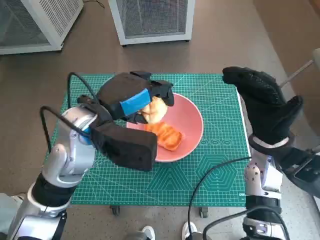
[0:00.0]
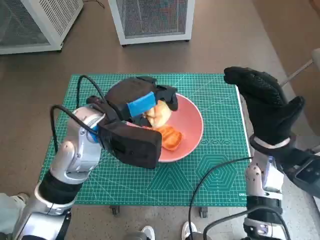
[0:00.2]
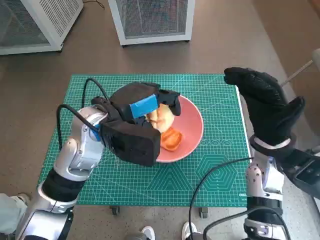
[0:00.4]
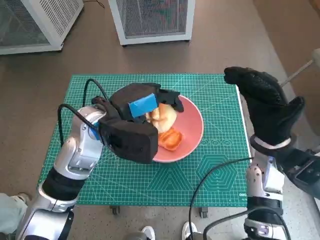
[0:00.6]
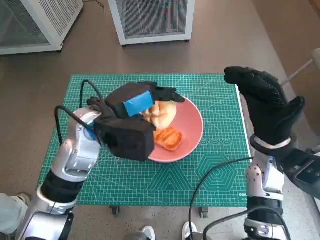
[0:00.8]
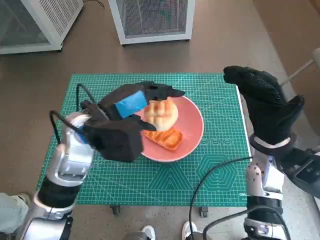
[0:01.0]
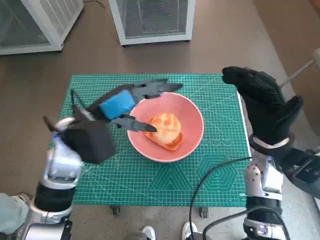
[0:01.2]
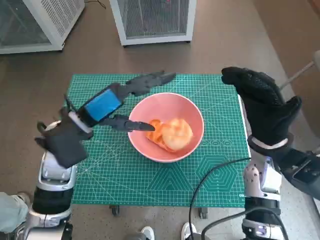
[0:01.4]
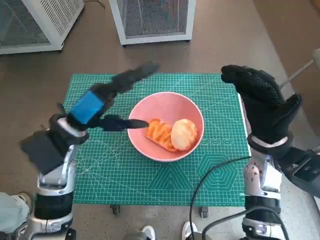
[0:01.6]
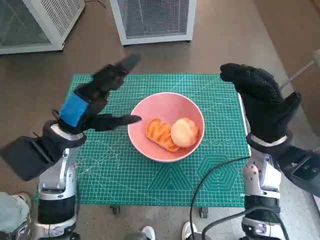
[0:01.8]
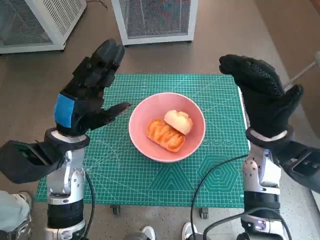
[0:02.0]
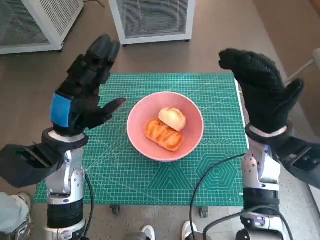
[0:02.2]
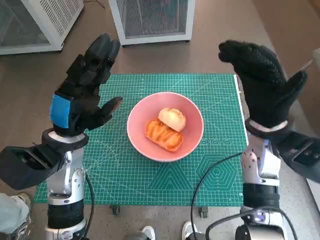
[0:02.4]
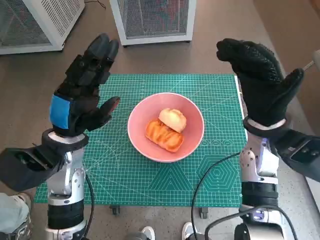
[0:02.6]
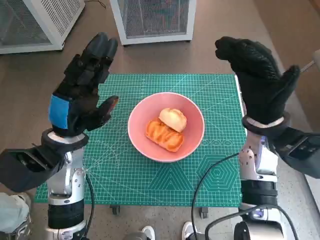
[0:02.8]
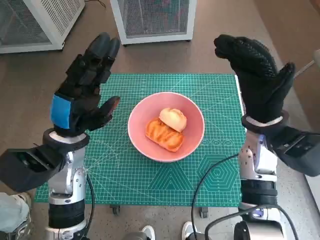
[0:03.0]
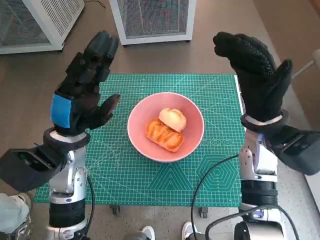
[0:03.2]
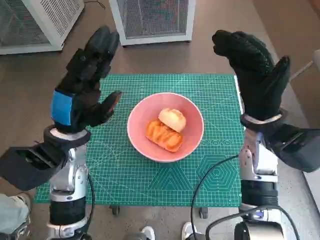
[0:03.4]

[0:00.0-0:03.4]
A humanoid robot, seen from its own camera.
Task of the whole recording: Push the bowl into the center of the table and put the bread into the bowl.
0:00.0 to 0:01.6: The left hand shifts about 5 cm to the left.

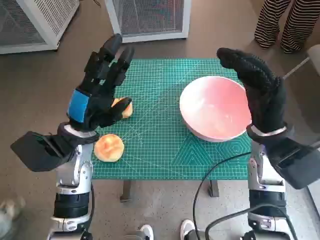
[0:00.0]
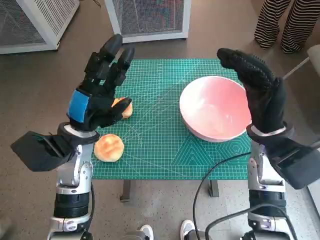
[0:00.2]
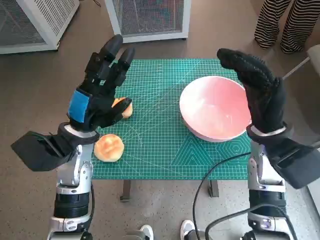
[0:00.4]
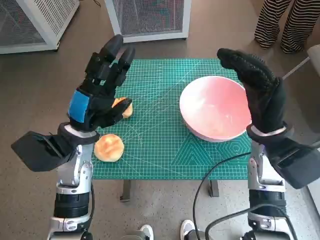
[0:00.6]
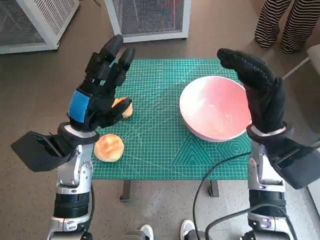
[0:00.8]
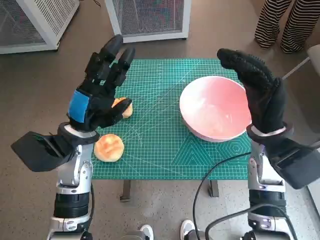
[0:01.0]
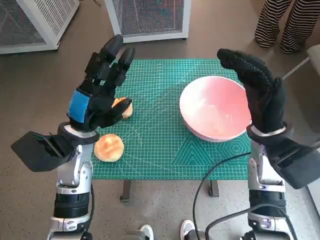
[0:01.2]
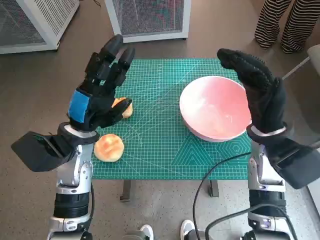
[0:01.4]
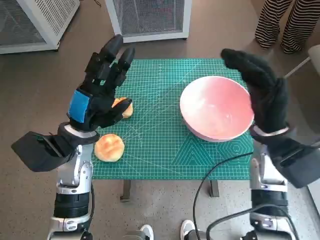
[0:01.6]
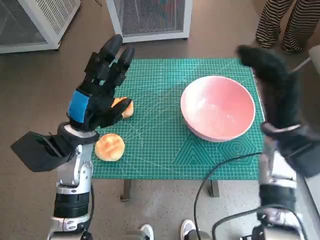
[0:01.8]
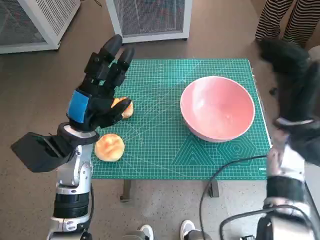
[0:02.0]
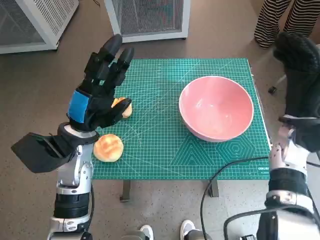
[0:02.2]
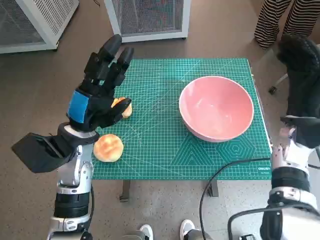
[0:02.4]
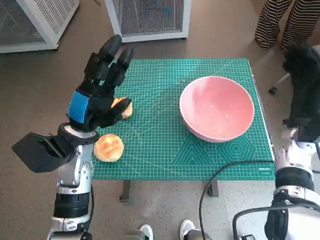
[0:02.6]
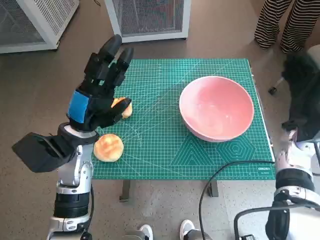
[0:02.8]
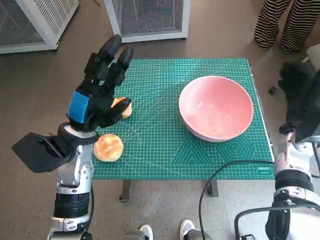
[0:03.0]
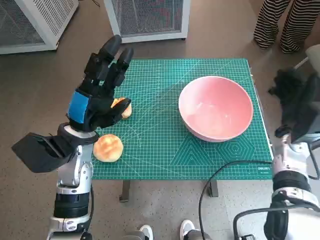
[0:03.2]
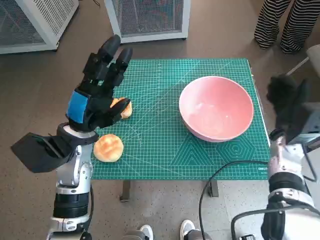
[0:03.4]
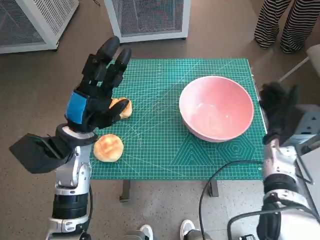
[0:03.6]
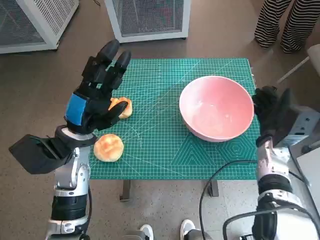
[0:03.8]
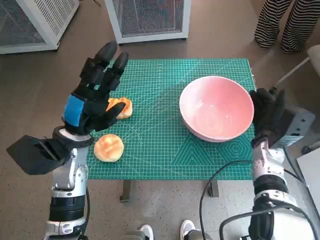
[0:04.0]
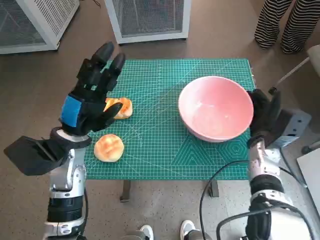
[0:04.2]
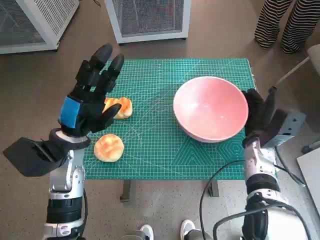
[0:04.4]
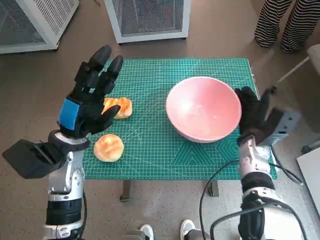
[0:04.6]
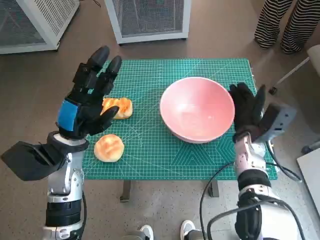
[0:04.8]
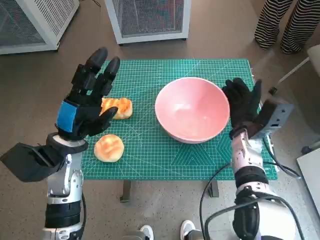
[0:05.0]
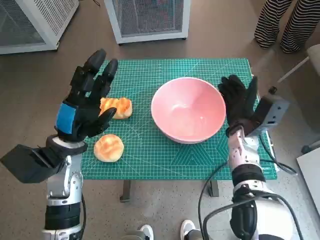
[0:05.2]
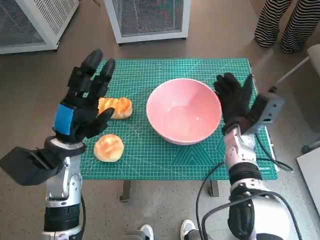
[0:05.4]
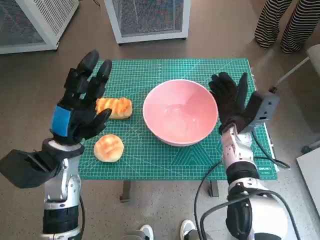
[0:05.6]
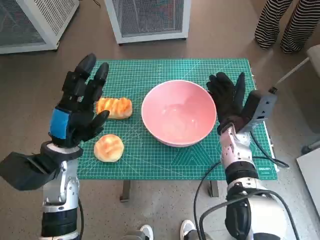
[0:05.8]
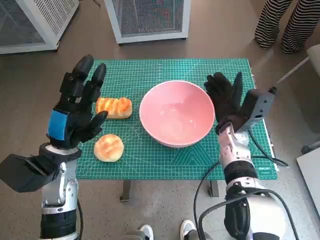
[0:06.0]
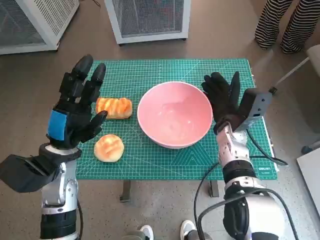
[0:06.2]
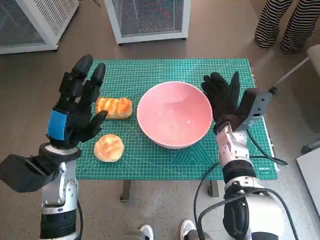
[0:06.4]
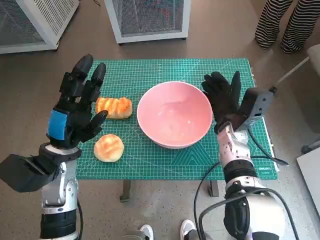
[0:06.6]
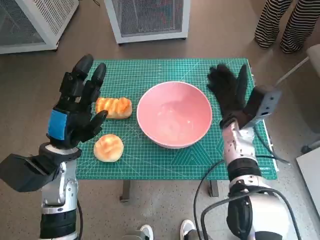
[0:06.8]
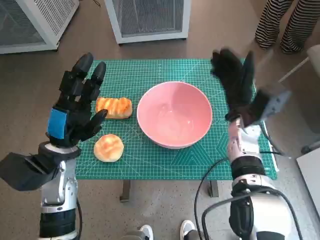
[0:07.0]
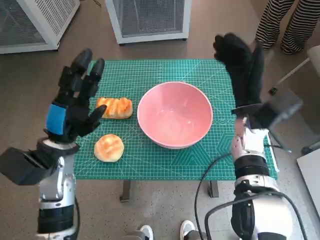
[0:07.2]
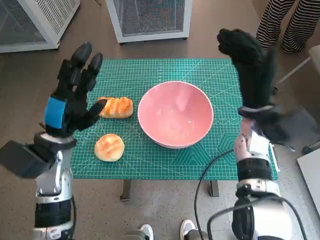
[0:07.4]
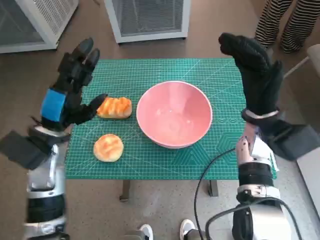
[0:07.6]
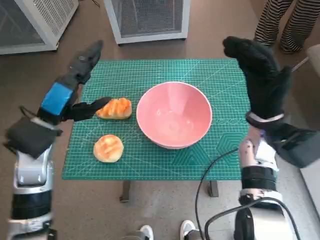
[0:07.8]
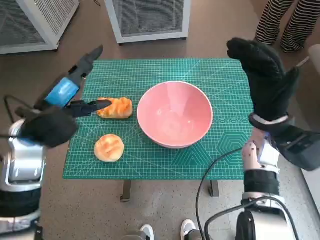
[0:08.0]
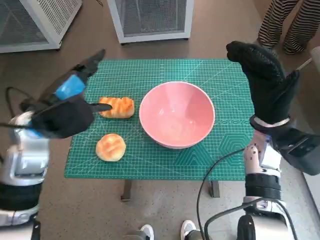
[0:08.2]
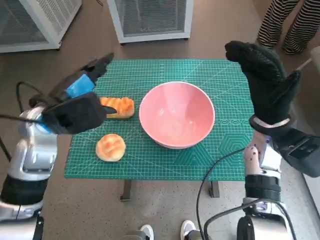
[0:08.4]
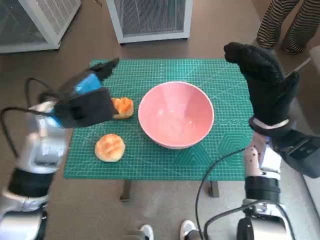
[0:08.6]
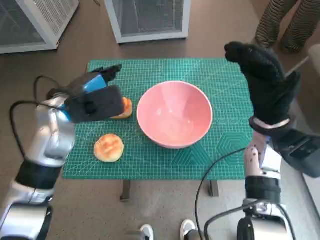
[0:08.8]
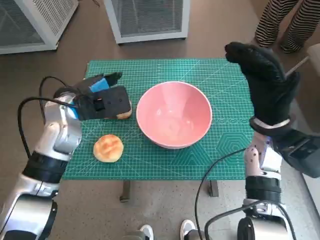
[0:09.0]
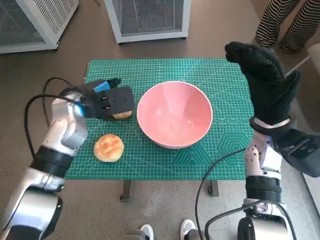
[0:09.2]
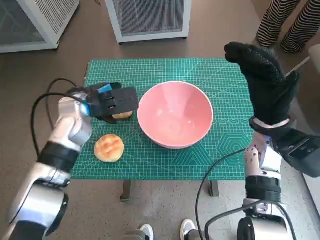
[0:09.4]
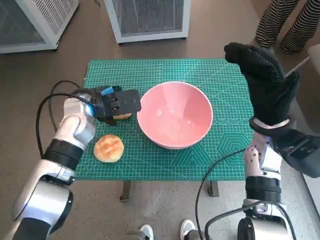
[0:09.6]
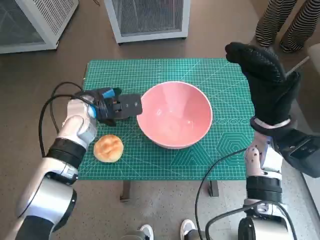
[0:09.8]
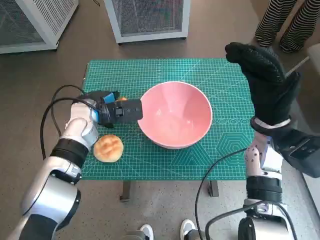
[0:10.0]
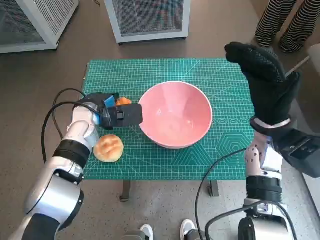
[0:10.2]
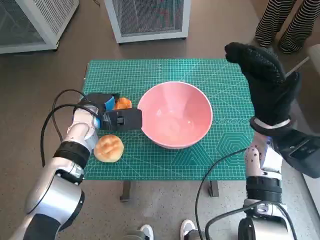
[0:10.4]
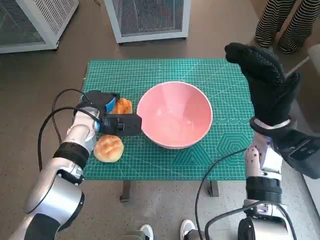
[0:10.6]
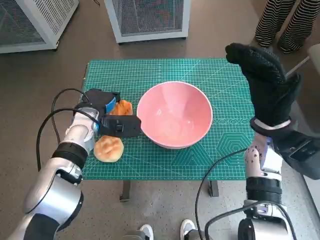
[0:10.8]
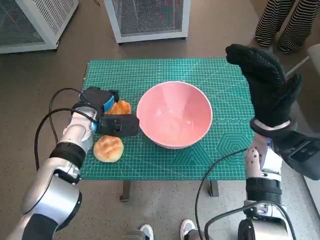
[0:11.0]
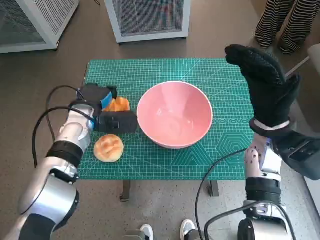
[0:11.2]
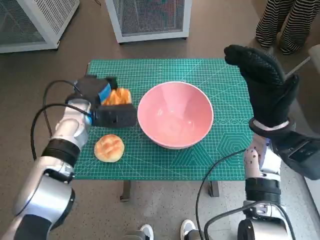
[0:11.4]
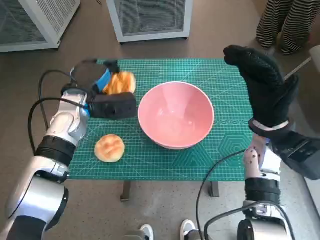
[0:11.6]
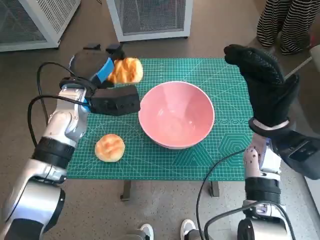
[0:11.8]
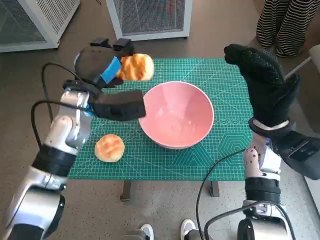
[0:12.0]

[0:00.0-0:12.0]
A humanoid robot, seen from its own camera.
Task of the whole recording: Push the bowl into the center of the table and put the bread into the bowl.
Step, 0:00.0 to 0:06.8: Move the pink bowl to the center of table with right hand.
Step, 0:07.0 to 0:10.6: Grasp the long bread with left hand.
0:01.6 to 0:03.0: The right hand shifts some 10 cm to the right and downward.
0:03.0 to 0:04.4: The right hand moves to the left and downward, some 10 cm.
0:04.4 to 0:06.0: The right hand moves to the left, some 5 cm.
0:06.0 to 0:07.6: The right hand heads upward, covering about 5 cm.
0:07.6 to 0:09.0: The left hand travels forward by approximately 5 cm.
0:09.0 to 0:10.4: The left hand moves downward, some 10 cm.
0:10.4 to 0:12.0: The left hand shifts roughly 10 cm upward.

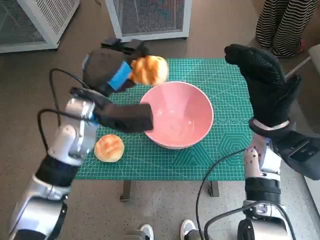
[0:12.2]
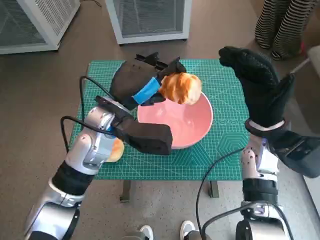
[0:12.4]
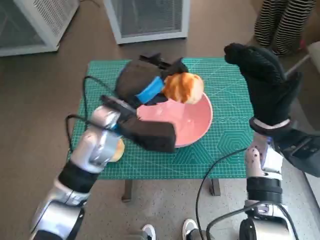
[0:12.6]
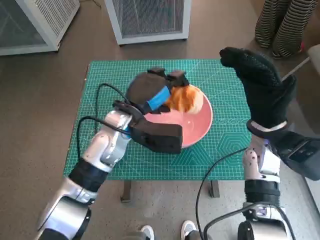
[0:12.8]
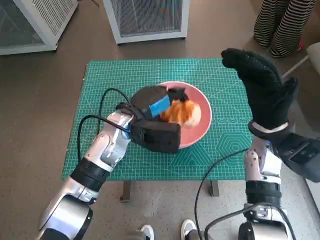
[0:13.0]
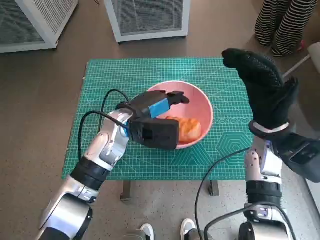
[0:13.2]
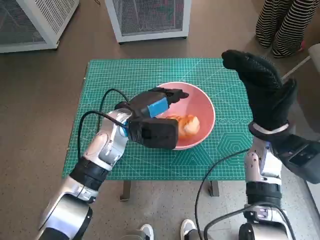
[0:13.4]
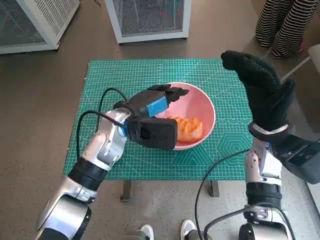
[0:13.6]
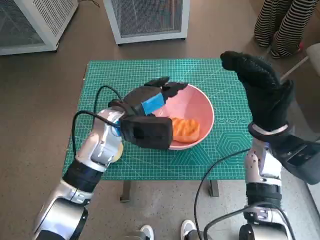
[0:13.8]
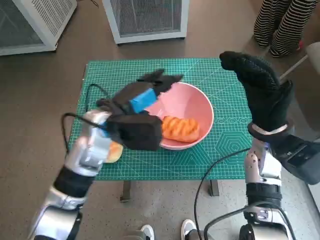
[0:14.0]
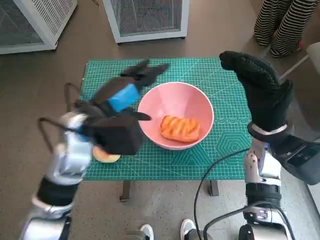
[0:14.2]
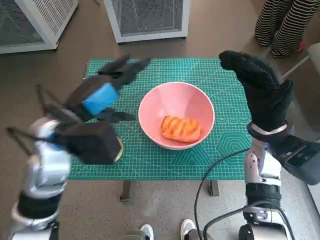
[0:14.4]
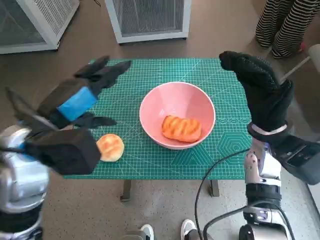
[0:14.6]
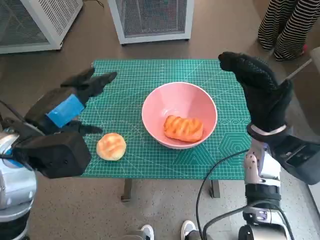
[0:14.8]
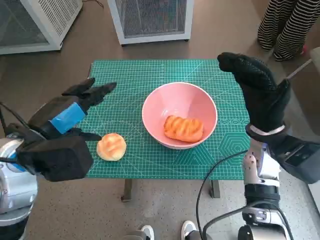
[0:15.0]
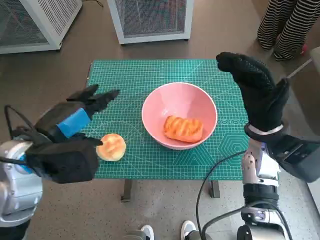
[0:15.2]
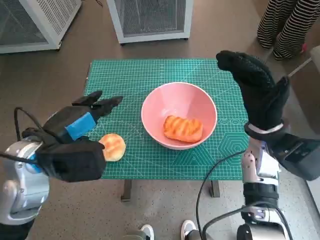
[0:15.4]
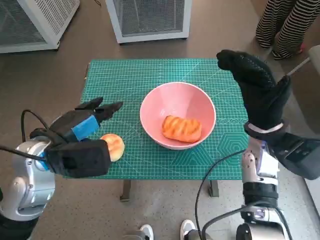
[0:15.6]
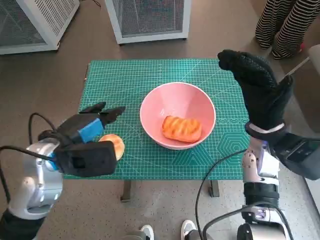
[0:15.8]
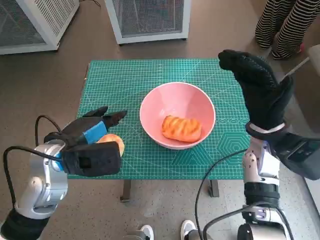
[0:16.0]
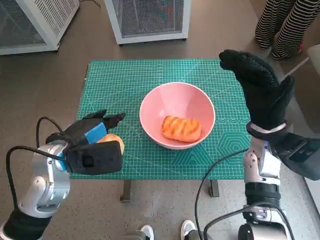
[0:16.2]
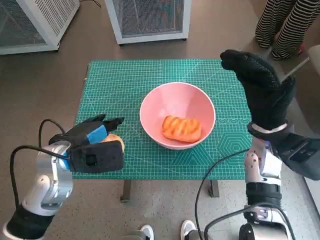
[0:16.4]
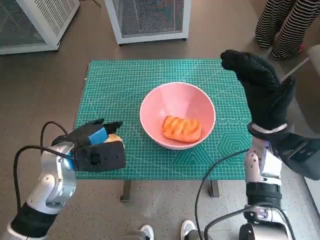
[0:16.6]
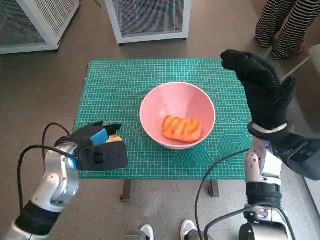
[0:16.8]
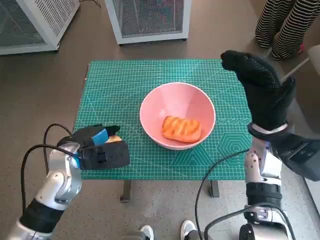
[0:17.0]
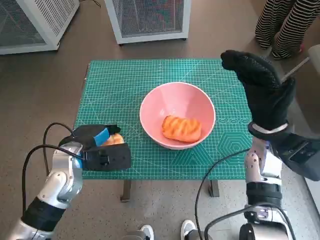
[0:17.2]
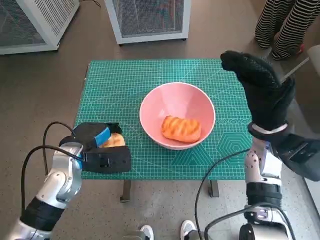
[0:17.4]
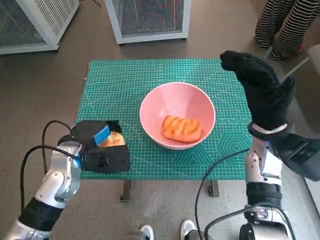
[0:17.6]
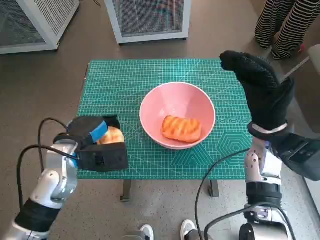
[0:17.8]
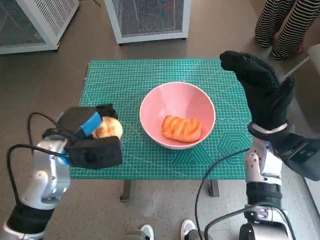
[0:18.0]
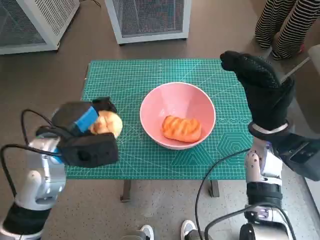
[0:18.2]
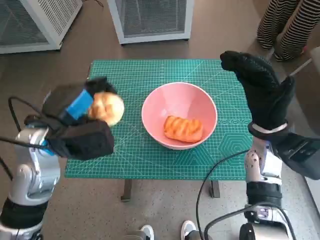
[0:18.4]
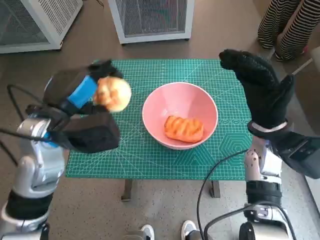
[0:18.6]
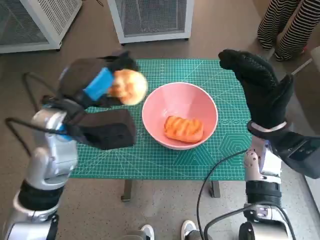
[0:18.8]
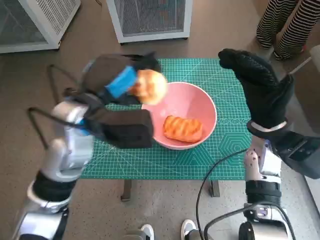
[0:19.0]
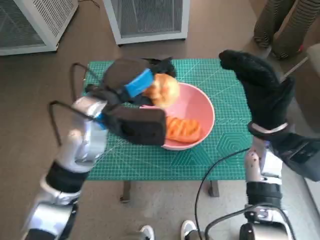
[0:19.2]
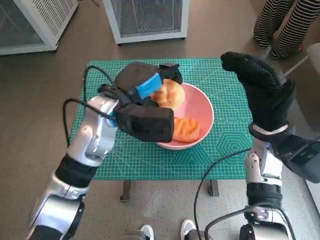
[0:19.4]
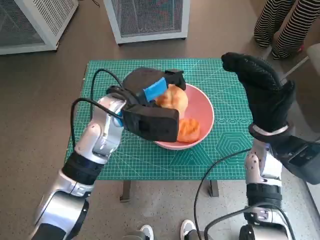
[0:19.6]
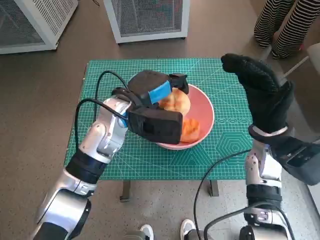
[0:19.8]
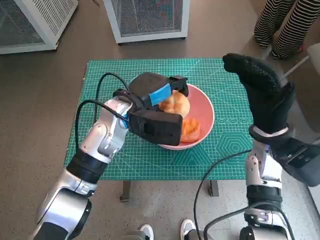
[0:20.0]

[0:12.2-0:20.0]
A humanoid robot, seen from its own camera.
Task of the whole recording: Push the bowl into the center of the table and put the bread into the bowl.
Step, 0:13.2 to 0:17.2: Grasp the round bread with left hand.
0:12.2 to 0:13.8: The left hand shifts by roughly 5 cm.
0:13.8 to 0:15.4: The left hand moves to the left and backward, about 15 cm.
0:15.4 to 0:16.8: The left hand is displaced downward by roughly 10 cm.
0:16.8 to 0:18.4: The left hand goes roughly 5 cm upward.
0:18.4 to 0:20.0: The left hand heads to the right and forward, covering roughly 15 cm.
